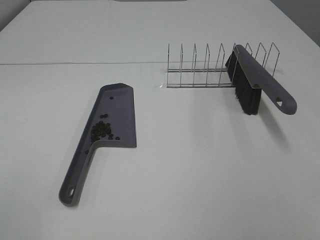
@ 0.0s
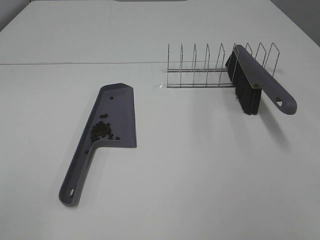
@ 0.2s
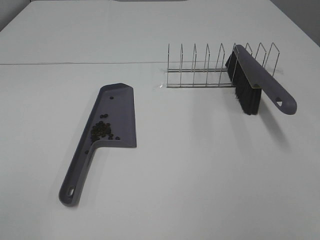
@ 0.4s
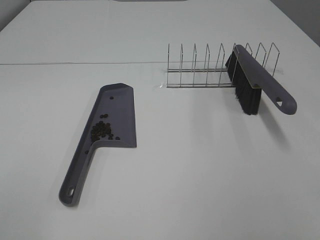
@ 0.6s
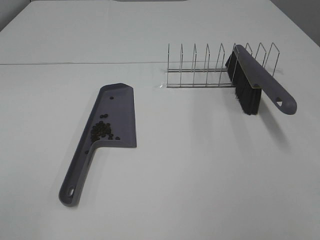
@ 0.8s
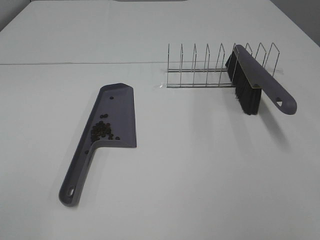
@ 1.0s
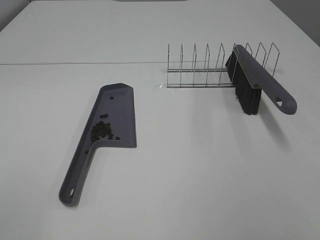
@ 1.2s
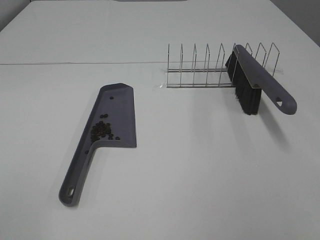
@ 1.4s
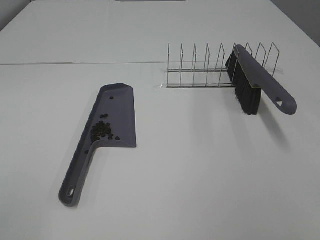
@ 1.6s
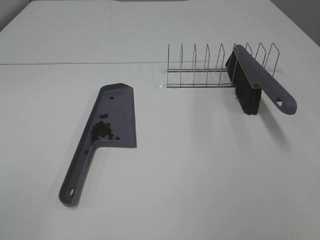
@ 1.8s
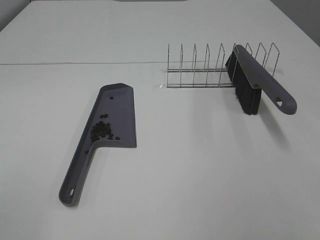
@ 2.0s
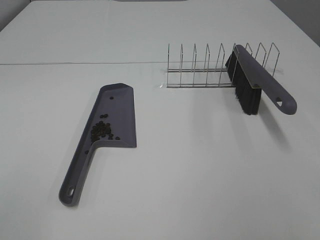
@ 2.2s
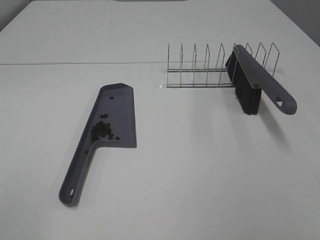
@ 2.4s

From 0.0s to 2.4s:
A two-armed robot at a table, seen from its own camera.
Task of the whole recording: Sweep Coffee Bean.
From 0.0s to 2.4s: Neither gripper changes place.

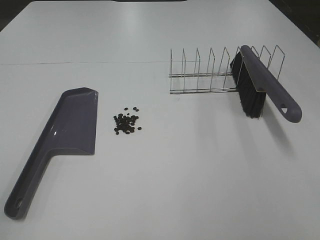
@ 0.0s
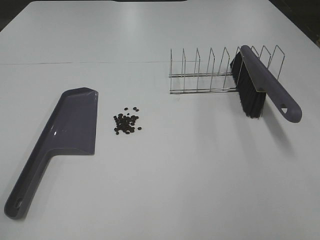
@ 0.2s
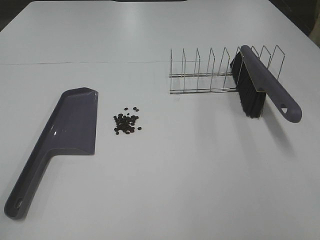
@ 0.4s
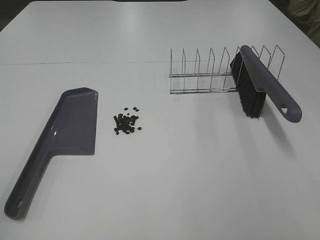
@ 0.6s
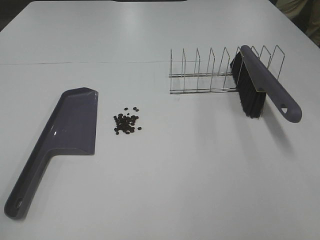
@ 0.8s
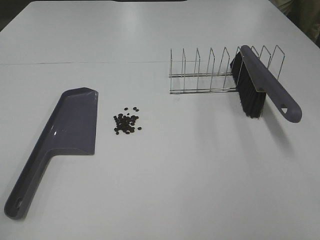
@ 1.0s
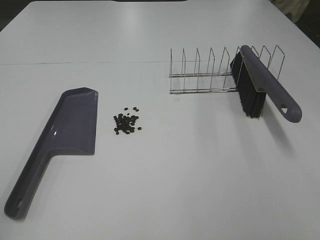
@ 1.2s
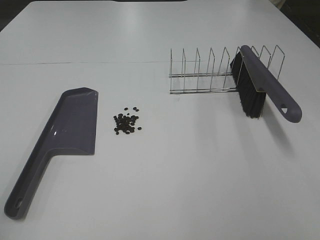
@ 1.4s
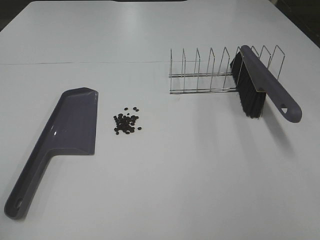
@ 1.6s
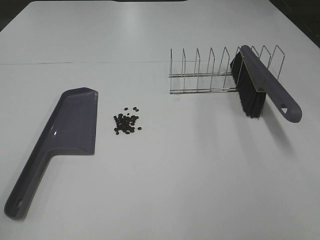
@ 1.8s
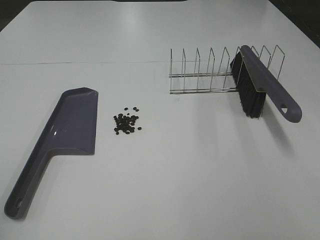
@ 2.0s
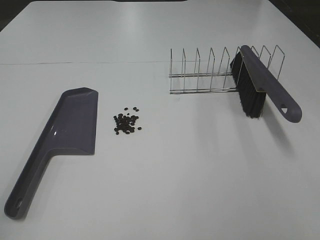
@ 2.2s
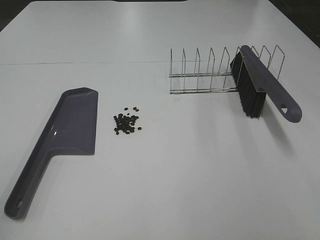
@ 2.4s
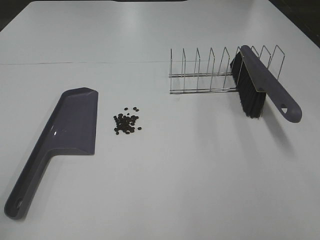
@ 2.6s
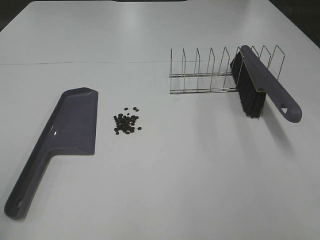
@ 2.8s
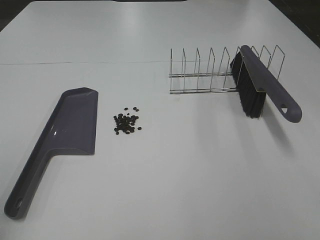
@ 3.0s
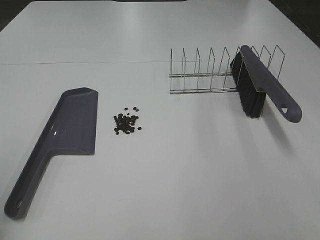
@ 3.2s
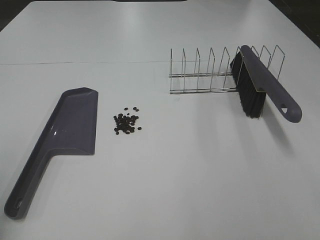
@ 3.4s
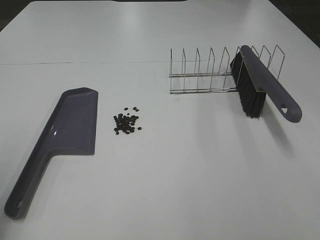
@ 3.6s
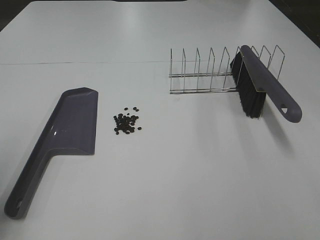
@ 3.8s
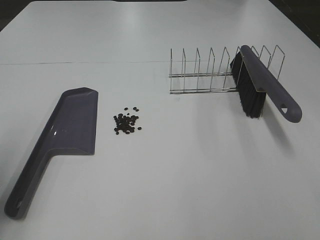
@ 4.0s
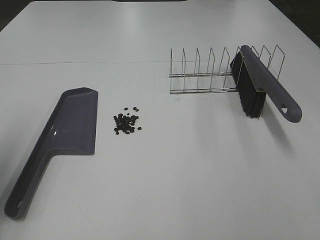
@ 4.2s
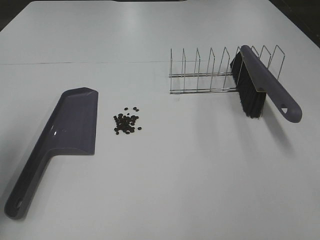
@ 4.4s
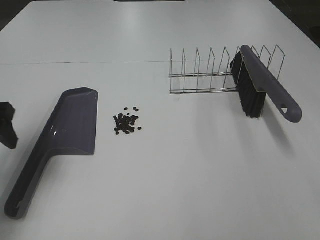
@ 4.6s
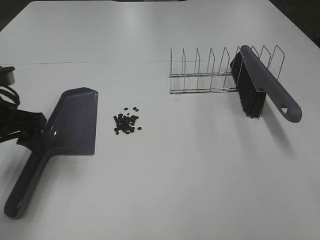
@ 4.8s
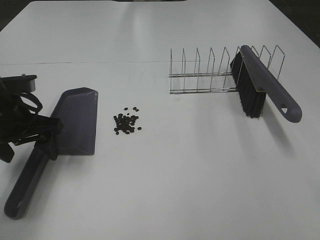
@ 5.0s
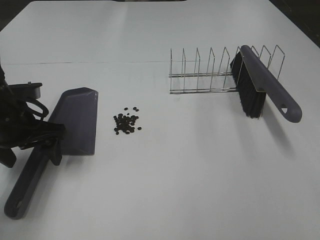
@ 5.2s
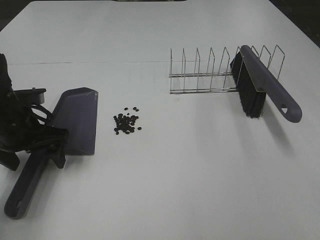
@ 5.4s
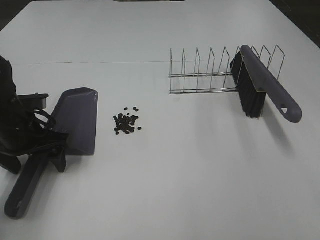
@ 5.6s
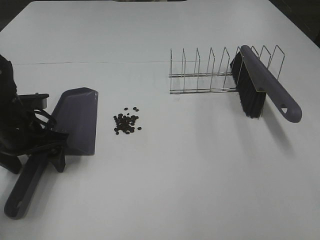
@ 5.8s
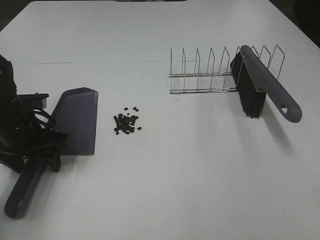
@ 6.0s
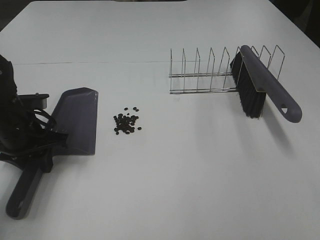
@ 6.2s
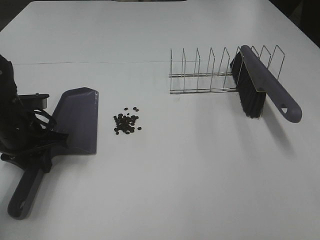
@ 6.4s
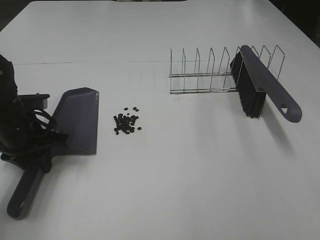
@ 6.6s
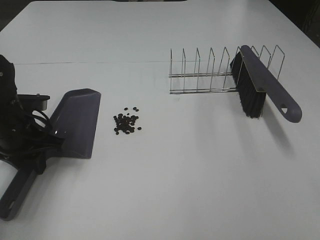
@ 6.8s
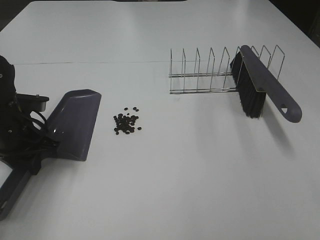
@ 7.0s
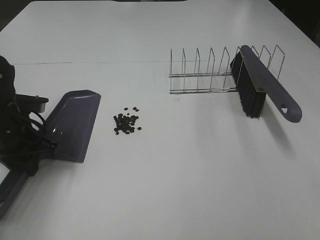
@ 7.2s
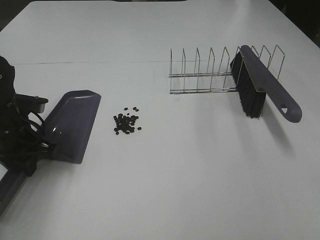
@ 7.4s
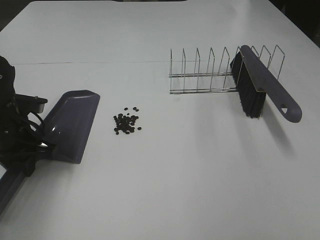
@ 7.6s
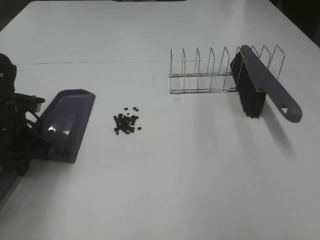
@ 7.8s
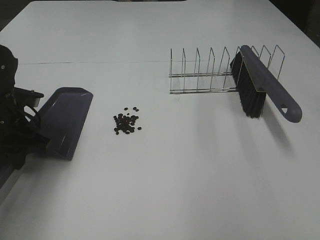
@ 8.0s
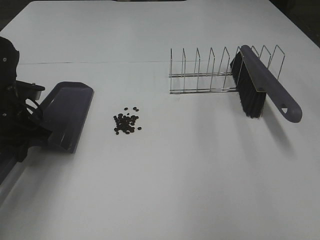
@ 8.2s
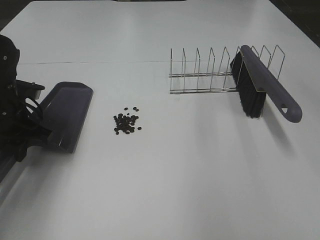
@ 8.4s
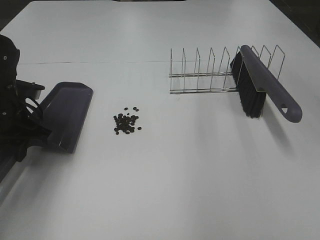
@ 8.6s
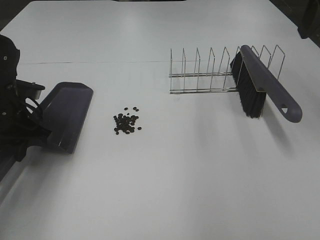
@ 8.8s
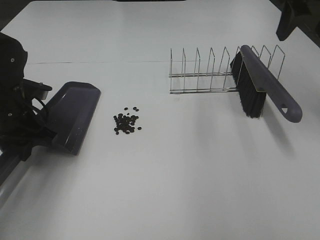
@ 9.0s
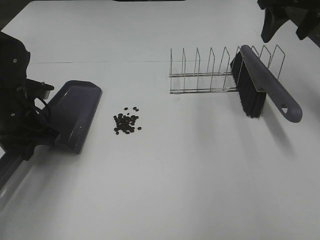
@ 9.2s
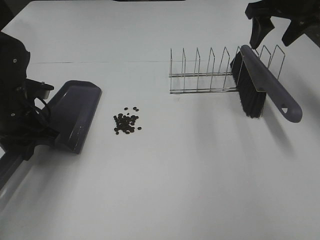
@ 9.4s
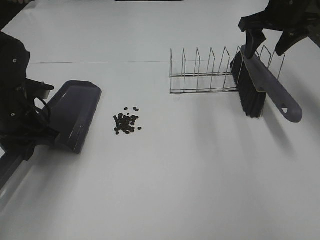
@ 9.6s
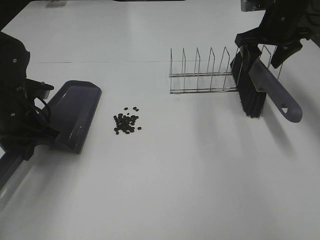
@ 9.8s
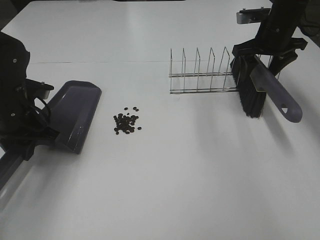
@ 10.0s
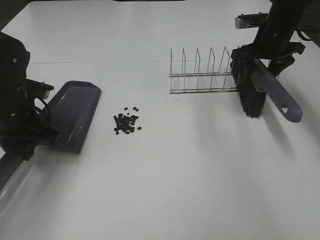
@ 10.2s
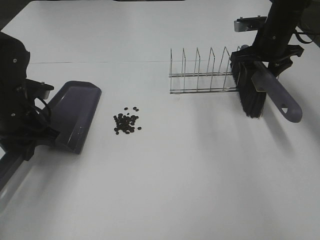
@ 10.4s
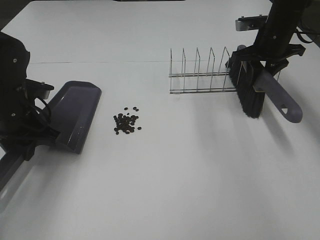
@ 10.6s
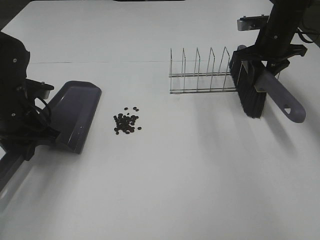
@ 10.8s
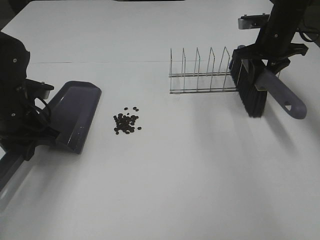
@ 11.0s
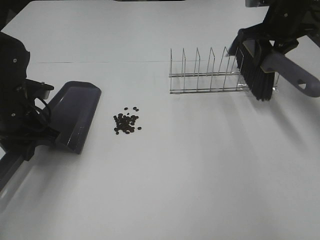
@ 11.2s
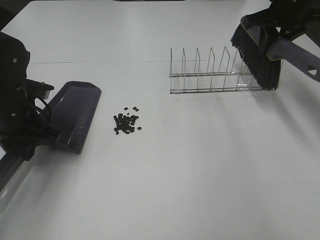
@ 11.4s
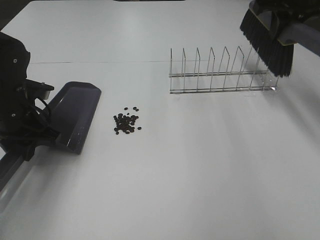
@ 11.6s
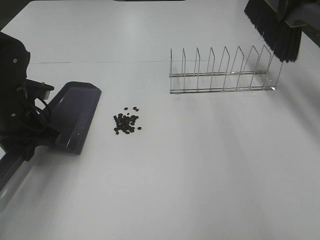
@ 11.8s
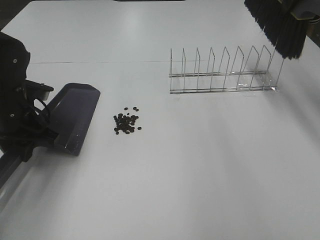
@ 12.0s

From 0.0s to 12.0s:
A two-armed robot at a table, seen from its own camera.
Task of the whole recording: Sweep Coffee Bean.
Step, from 0.0s to 6.4s: Left hand: grab the dustpan.
Step, from 7.2s to 10.8s: Right hand:grab the broom.
From 0.0s to 1.6s: Both grippers stay about where they are.
From 3.0s to 4.4s: The left gripper travels forward by about 20 cm.
From 4.4s to 6.0s: The left gripper shifts approximately 15 cm downward, to the right and forward.
From 6.0s to 7.6s: The left gripper closes its fingers, while the right gripper goes some 5 cm upward.
From 7.6s to 9.0s: The right gripper is displaced forward by roughly 35 cm.
From 9.0s to 10.4s: The right gripper travels downward and forward by some 20 cm.
From 10.4s to 12.0s: The right gripper goes some 20 cm upward and backward, and closes up.

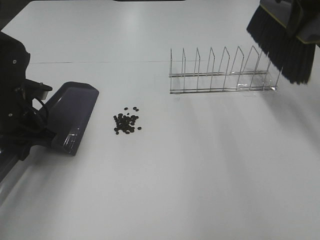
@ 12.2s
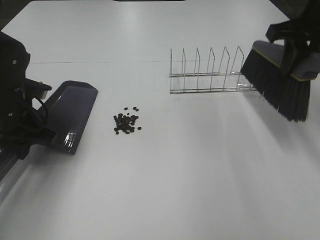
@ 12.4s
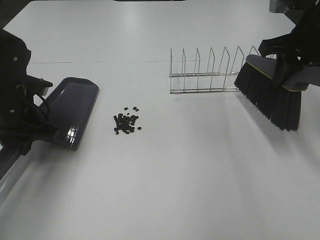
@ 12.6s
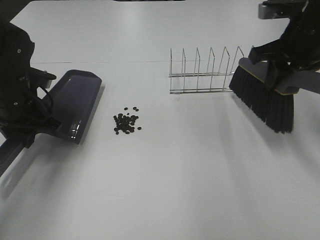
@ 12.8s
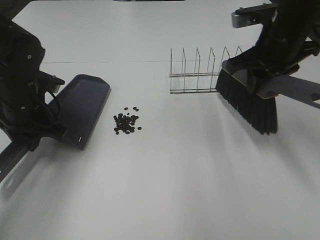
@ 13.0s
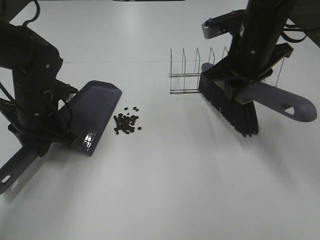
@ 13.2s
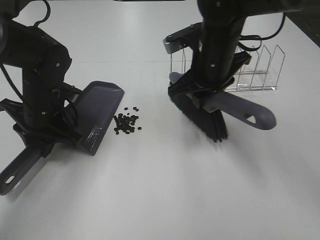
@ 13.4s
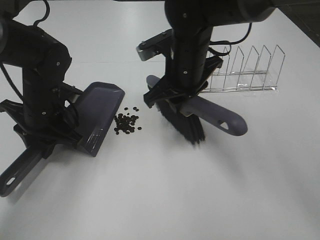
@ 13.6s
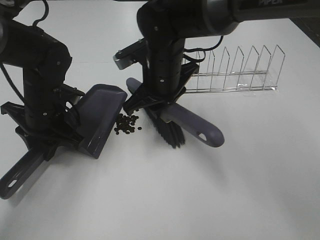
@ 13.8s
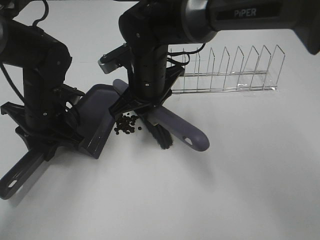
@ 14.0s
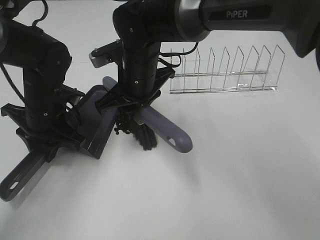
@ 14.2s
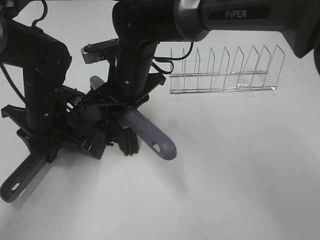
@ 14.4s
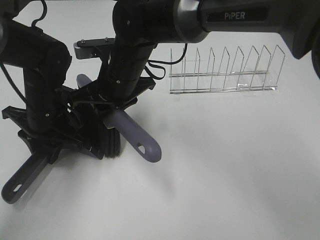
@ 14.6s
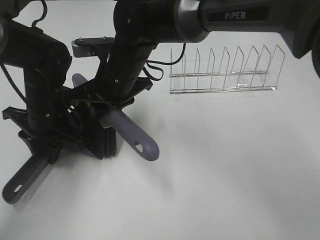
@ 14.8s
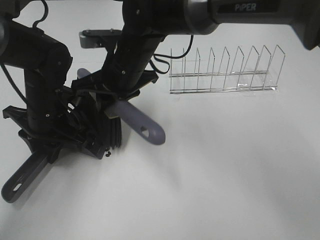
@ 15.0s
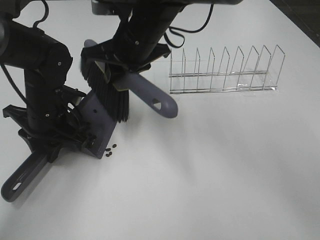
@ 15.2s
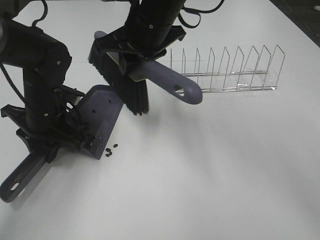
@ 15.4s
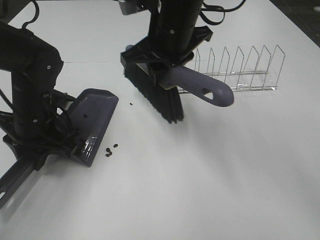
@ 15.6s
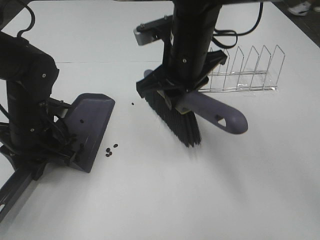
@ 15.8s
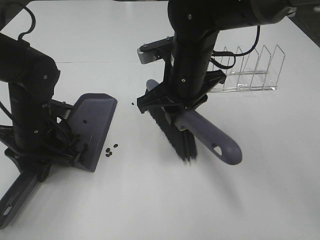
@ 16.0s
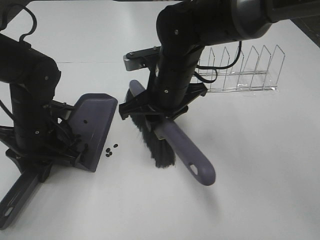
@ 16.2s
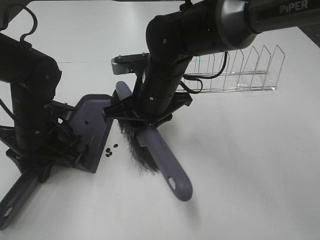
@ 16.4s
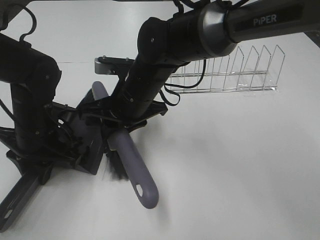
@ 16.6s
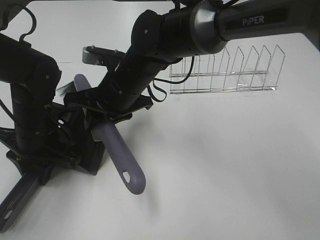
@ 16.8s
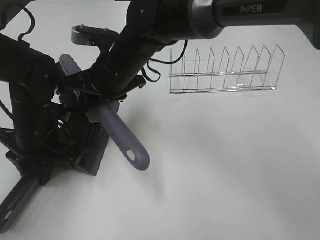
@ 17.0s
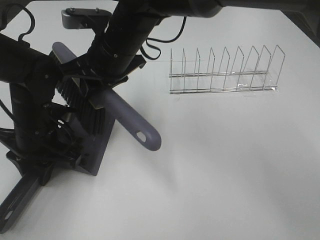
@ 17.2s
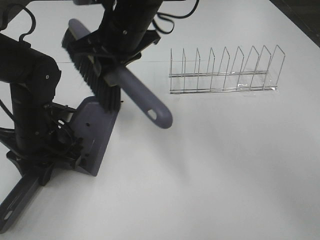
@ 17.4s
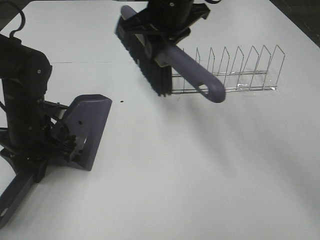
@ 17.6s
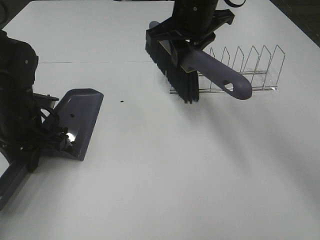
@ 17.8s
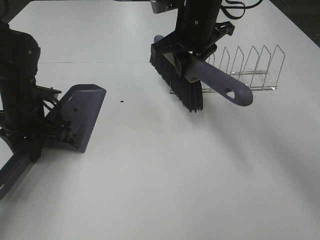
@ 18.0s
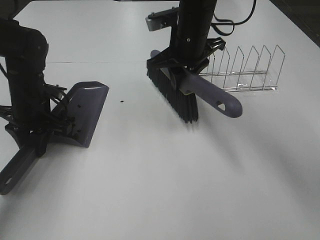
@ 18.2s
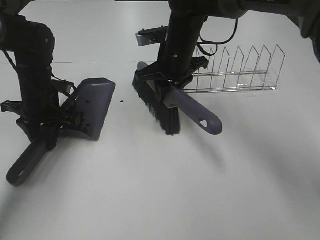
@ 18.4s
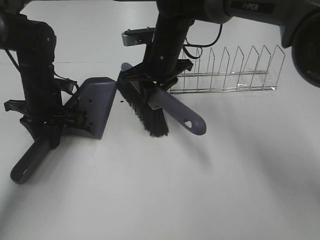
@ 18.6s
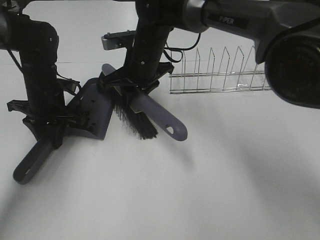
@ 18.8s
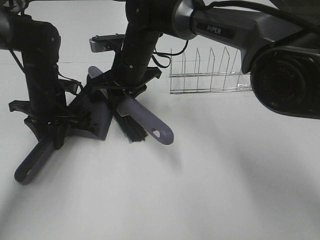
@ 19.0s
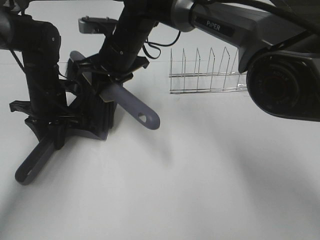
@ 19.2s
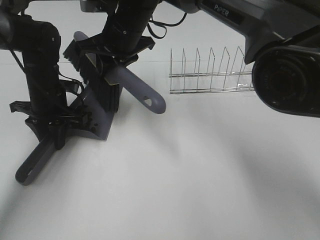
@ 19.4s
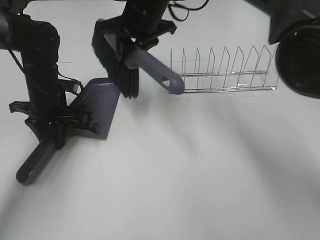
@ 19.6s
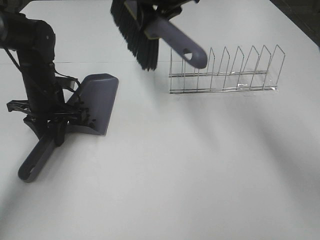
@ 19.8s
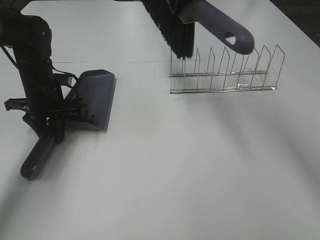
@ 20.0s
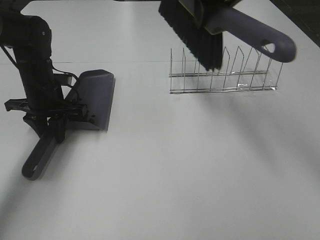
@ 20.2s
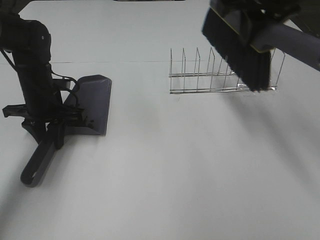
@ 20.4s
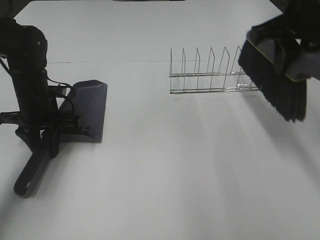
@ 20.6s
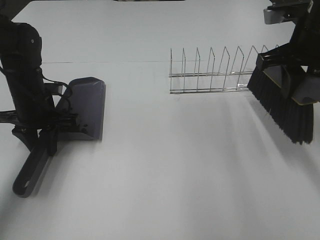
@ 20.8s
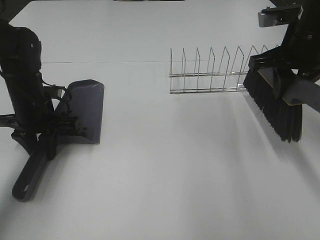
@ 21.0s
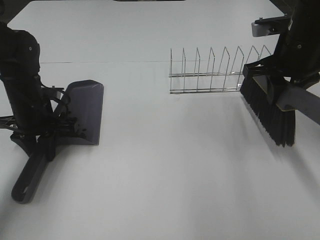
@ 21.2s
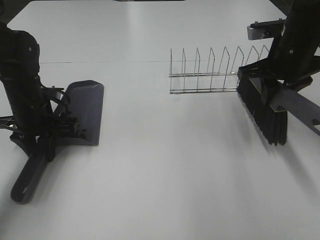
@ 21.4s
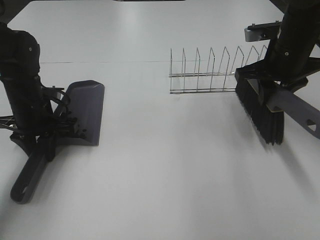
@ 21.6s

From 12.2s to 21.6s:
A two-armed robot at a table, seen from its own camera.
Task of the whole recording: Sweep Coffee Bean.
Step, from 12.2s to 19.4s: Right hand:sweep the coffee beans into the dustpan.
From 12.2s to 13.8s: The right gripper is displaced to the left and downward by about 30 cm, while the left gripper moves to the right, about 5 cm.
From 13.8s to 15.4s: The right gripper shifts approximately 10 cm upward.
From 15.4s to 17.0s: The right gripper heads downward and to the left, covering approximately 10 cm.
From 17.0s to 18.4s: The right gripper heads to the right and forward, covering roughly 10 cm. Meanwhile the left gripper travels forward by approximately 10 cm.
From 18.4s to 20.0s: The right gripper travels upward by approximately 15 cm.
From 20.0s to 21.6s: The right gripper shifts about 20 cm to the right and downward.
